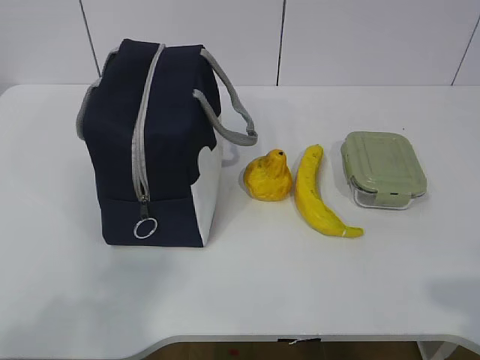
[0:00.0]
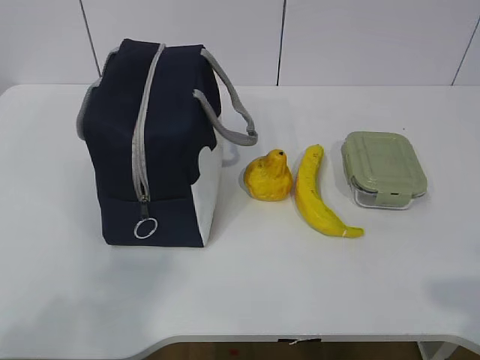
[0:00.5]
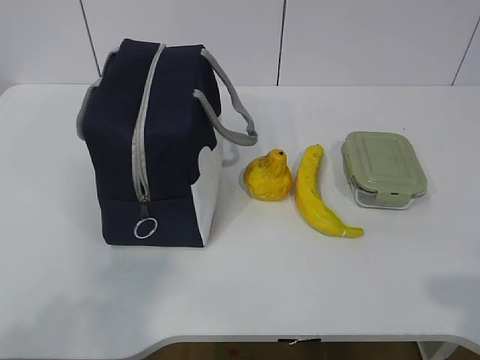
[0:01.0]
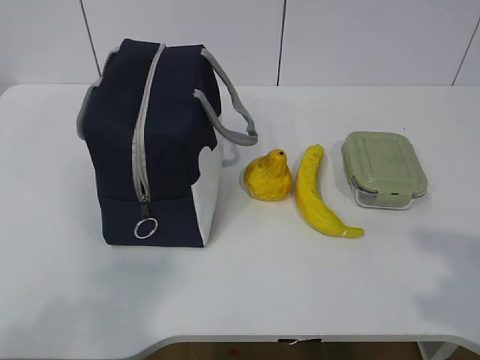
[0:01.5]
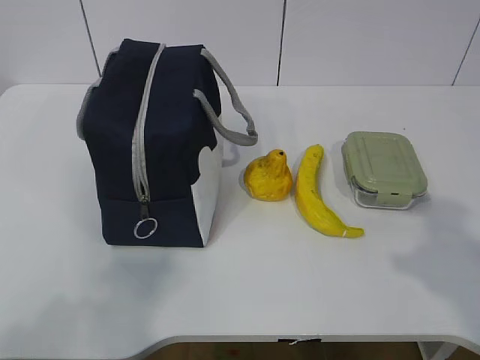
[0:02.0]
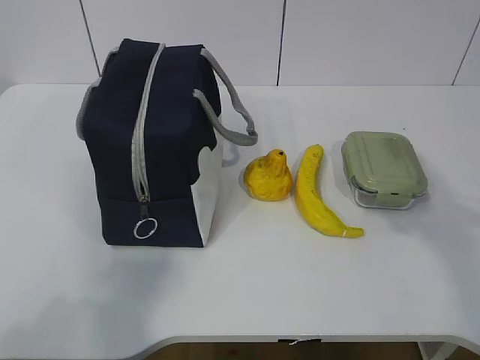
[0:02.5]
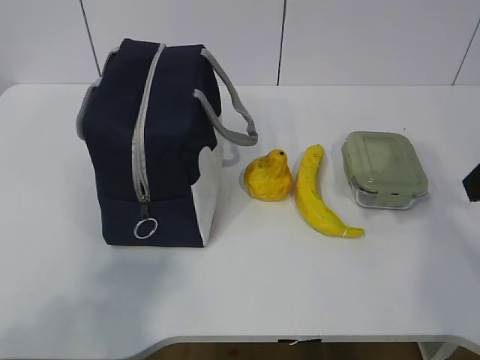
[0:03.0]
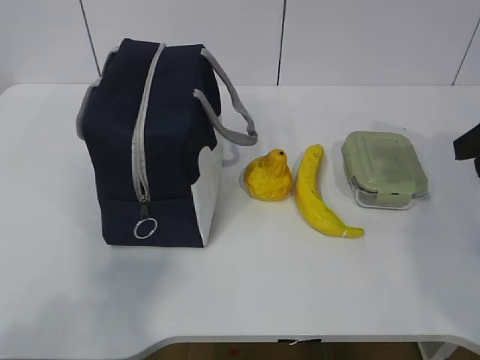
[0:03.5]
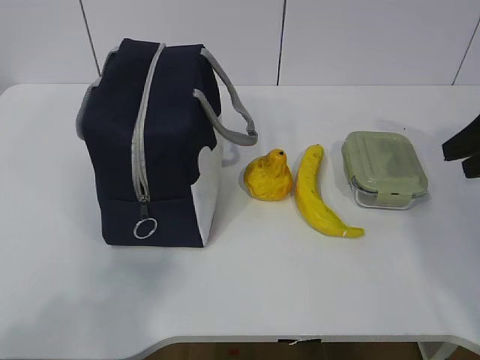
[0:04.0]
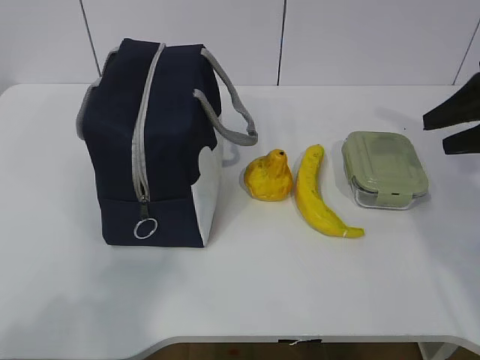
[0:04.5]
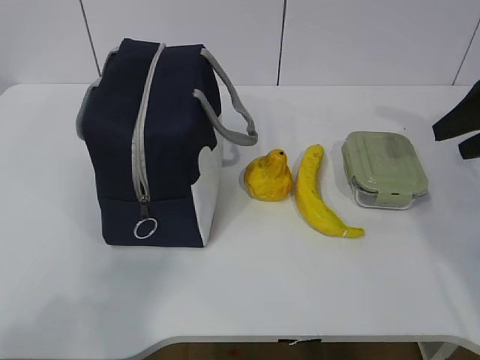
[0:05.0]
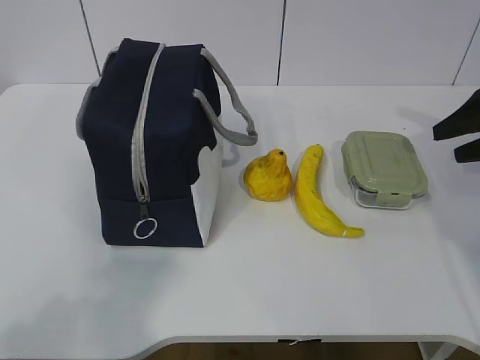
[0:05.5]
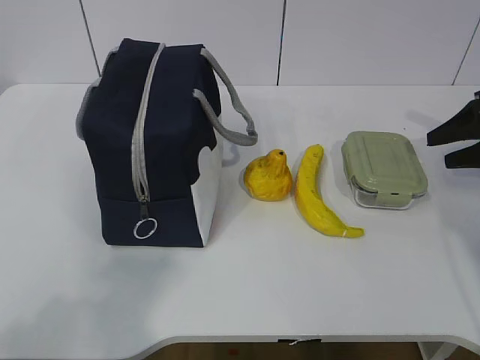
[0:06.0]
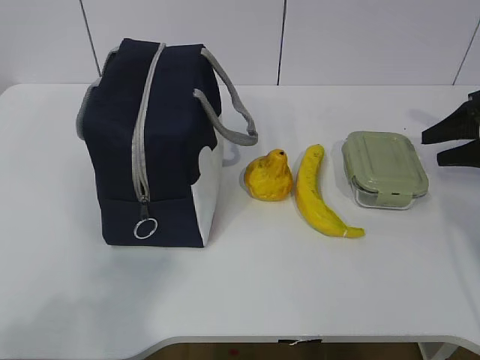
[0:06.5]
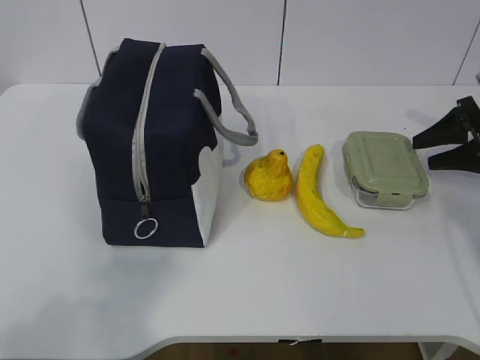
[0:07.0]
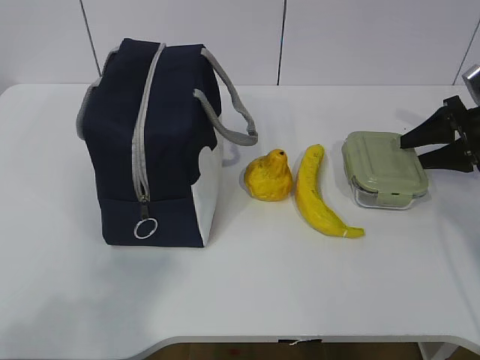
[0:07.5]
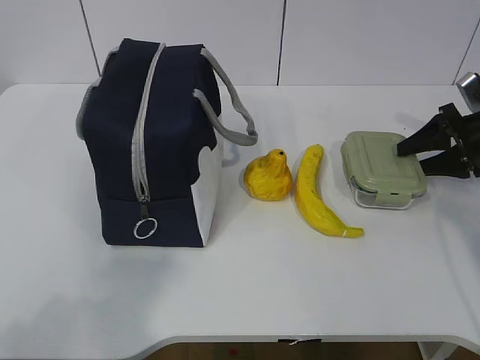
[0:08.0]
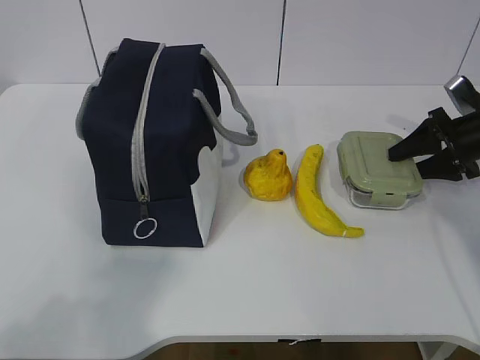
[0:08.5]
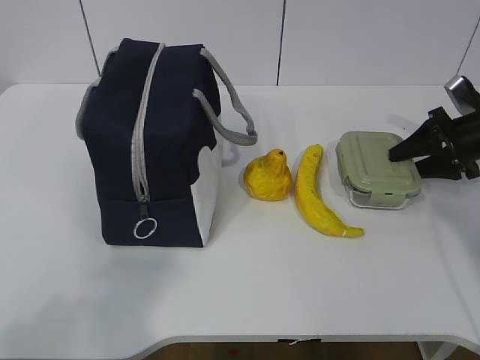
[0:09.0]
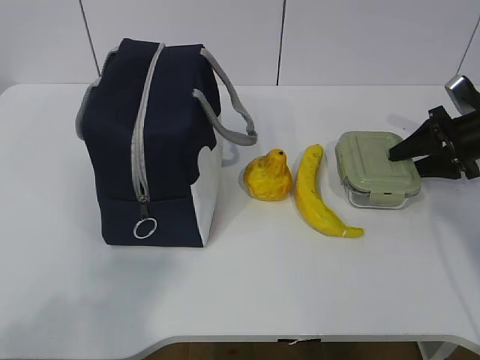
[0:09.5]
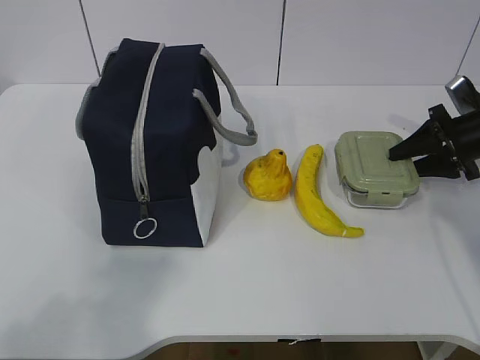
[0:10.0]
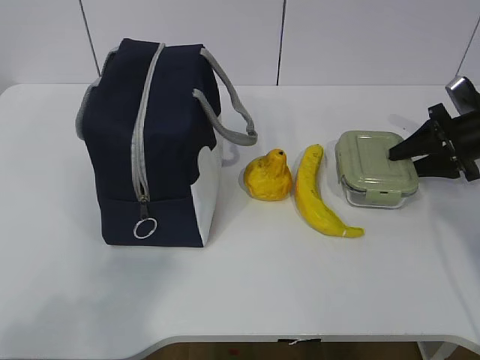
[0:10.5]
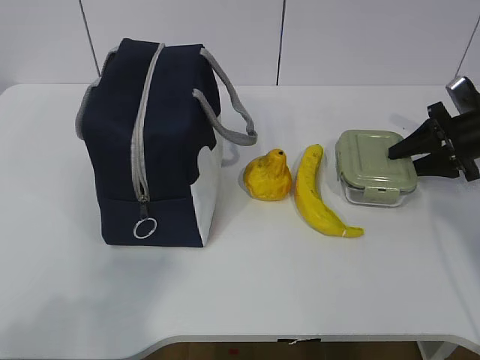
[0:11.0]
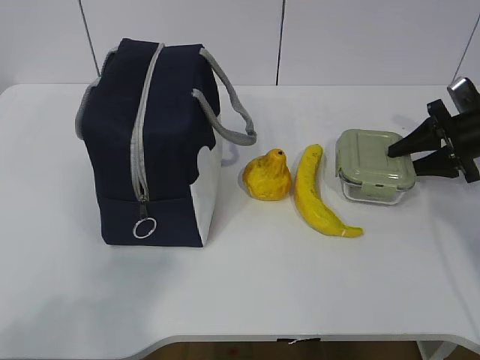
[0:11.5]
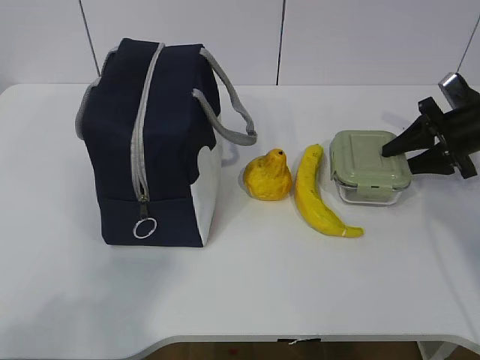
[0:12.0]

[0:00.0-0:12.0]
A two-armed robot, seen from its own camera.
Step, 0.0 to 10.0 s: Grasp the box with the right gripper.
2.0 to 4.0 s: The right gripper travels forward by roughly 20 cm.
4.0 to 6.0 s: The right gripper heads forward, downward and to the right, covering roughly 15 cm.
6.0 to 8.0 s: The right gripper shifts by approximately 5 cm.
8.0 to 10.0 s: Neither gripper changes place.
10.0 to 12.0 s: The grippers stay close to where they were, moving slightly.

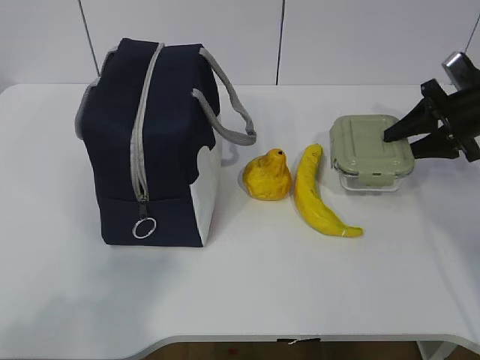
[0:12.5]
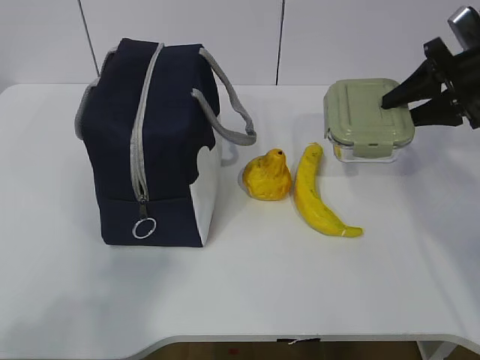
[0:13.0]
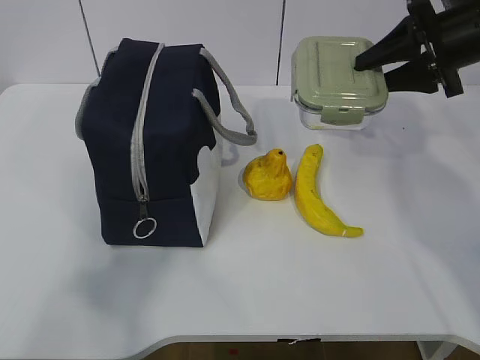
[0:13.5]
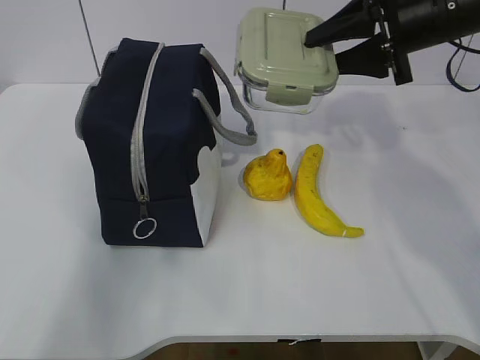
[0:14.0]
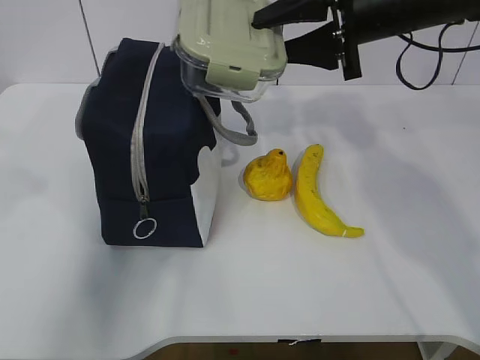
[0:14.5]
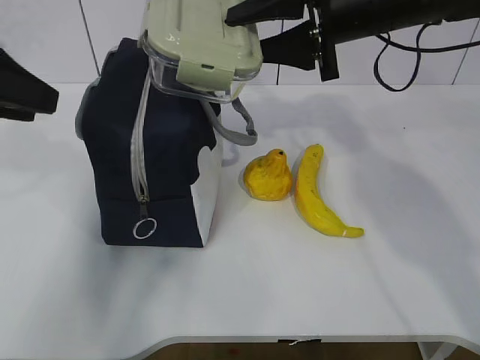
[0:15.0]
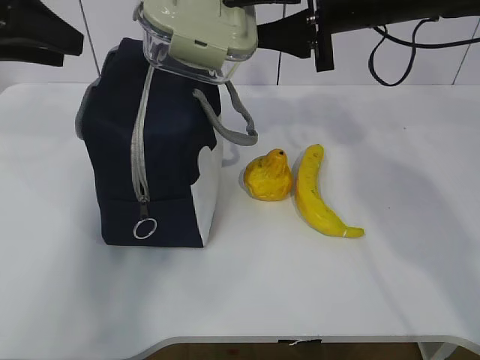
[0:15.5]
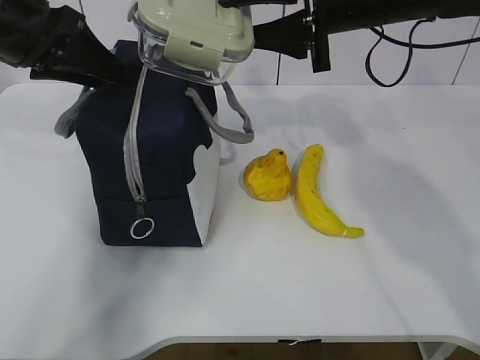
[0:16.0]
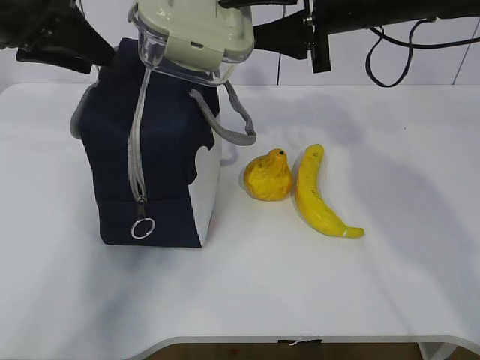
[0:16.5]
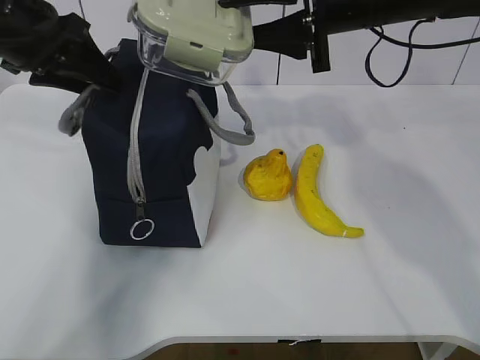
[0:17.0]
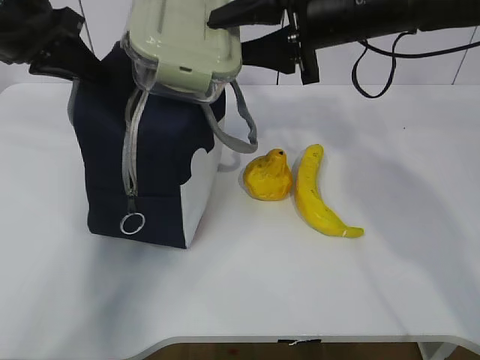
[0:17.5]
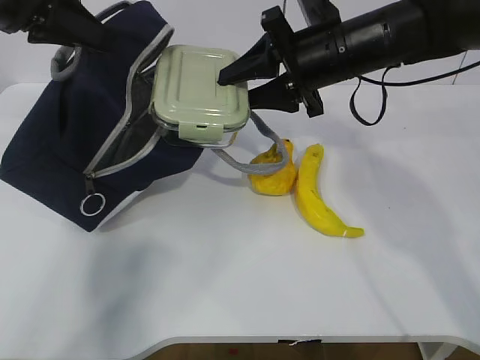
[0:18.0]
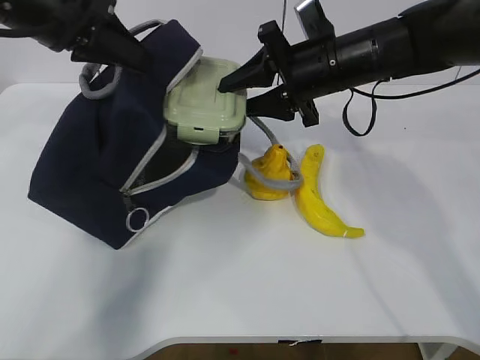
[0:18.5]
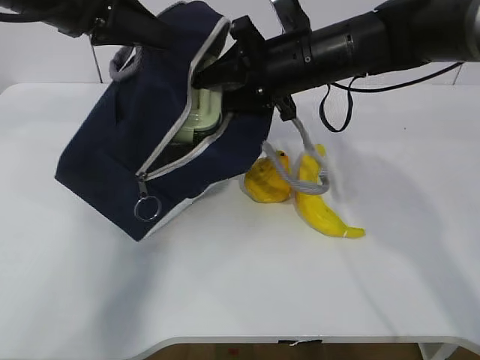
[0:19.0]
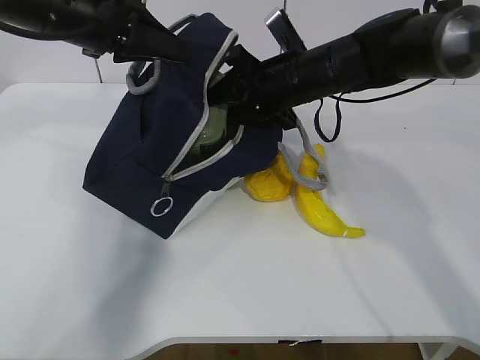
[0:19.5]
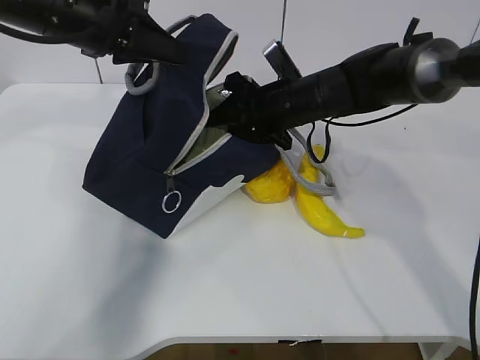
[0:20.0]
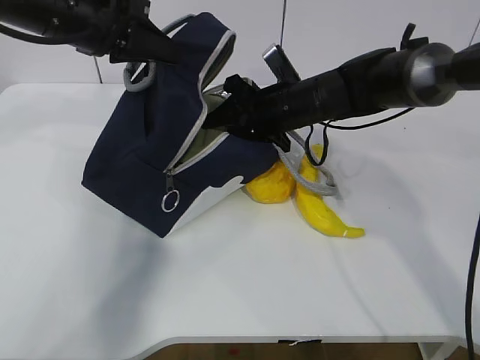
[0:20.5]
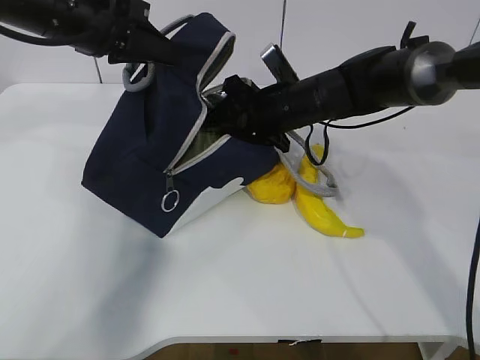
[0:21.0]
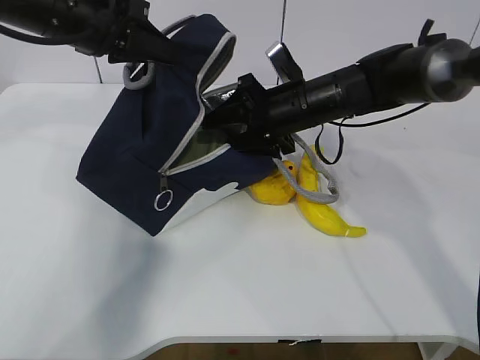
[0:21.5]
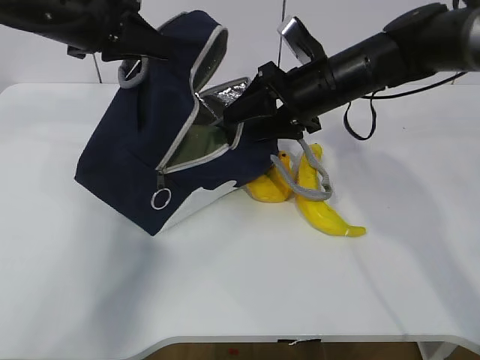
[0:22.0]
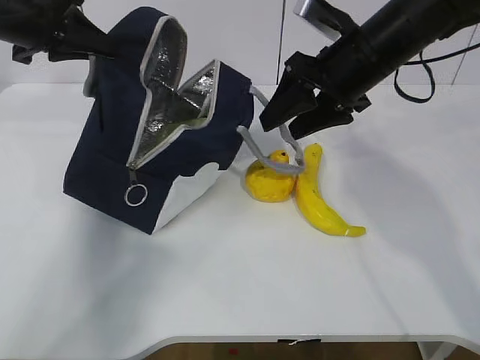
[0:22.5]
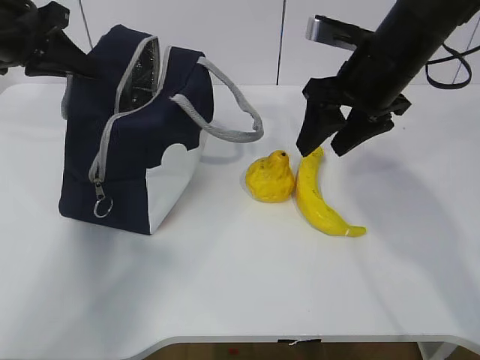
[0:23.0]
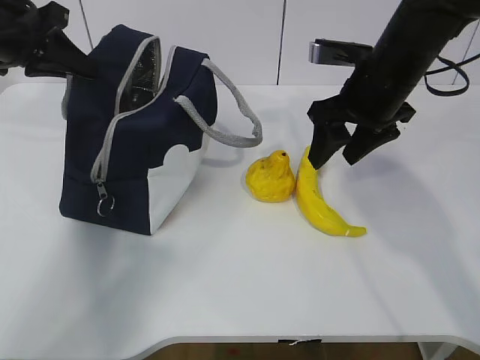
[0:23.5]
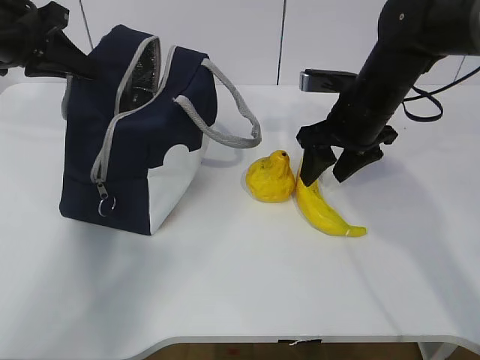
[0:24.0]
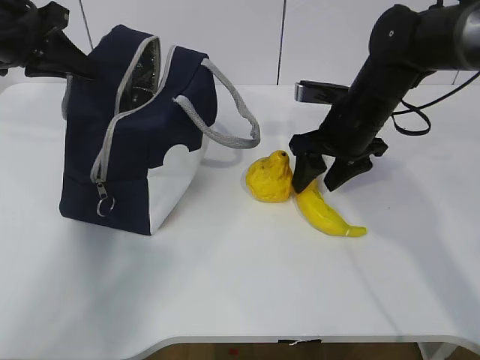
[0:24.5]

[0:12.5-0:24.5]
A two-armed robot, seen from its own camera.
Step, 12.5 to 21.5 s: Place the box into the package with the right gripper.
12.5 to 14.5 s: The left gripper shifts roughly 20 cm forward. Meanwhile the right gripper moves to the left and upward, about 20 cm.
14.5 to 16.5 s: The left gripper is displaced forward by some 20 cm.
16.5 to 18.5 s: The right gripper shifts about 10 cm downward; the left gripper closes.
18.5 to 20.5 s: The right gripper is displaced downward by about 5 cm.
20.5 to 22.5 s: The left gripper is displaced to the left by approximately 5 cm. Meanwhile the right gripper shifts about 10 cm upward, to the right and backward.
22.5 to 24.5 s: The right gripper heads downward, covering about 10 cm.

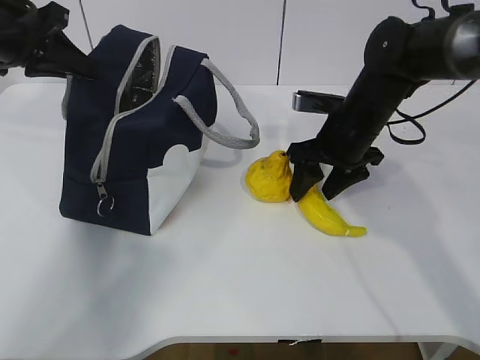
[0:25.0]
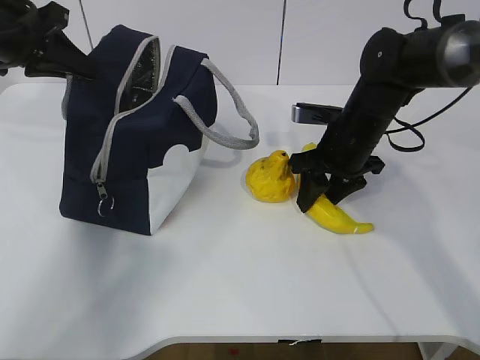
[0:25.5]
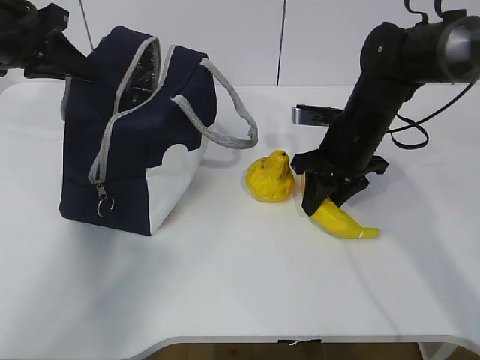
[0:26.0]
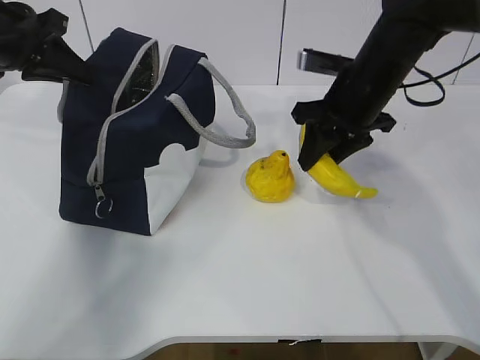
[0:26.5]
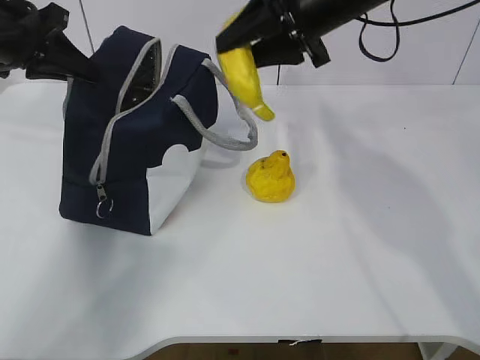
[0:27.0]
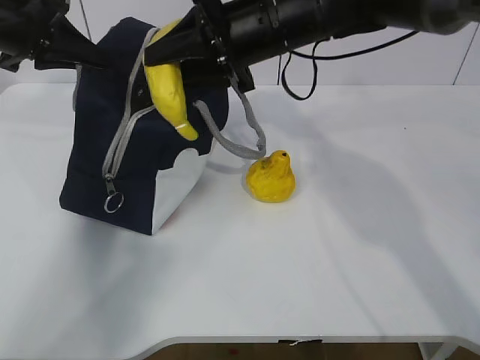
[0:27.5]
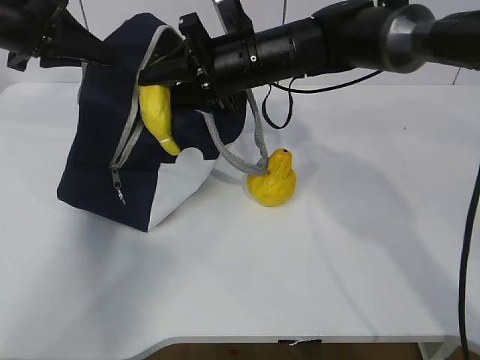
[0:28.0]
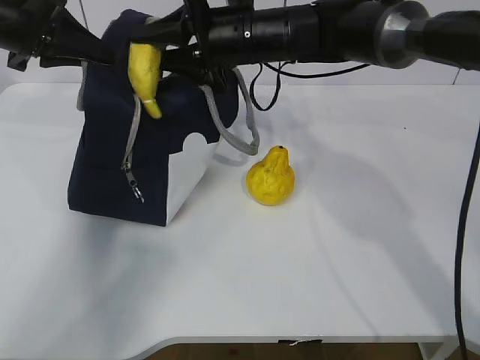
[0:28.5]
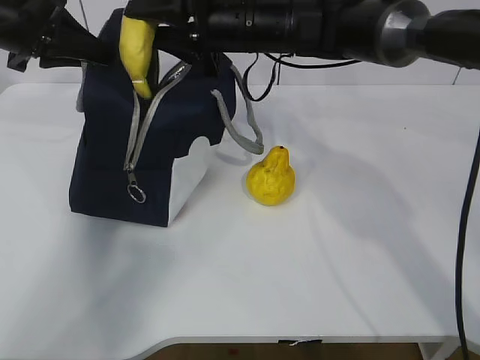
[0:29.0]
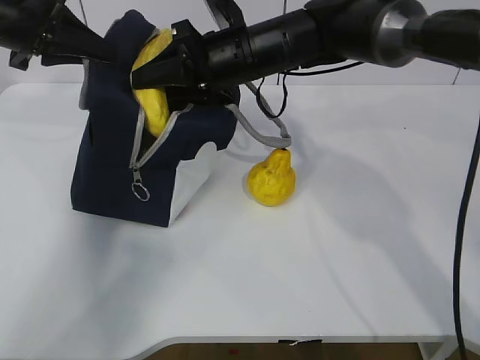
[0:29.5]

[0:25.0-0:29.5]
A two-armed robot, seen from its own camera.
25.0 to 27.0 s: The right gripper is displaced upward by some 15 cm, and closes its fingers.
27.0 to 29.5 s: The right gripper travels to the left and downward by roughly 10 cm.
